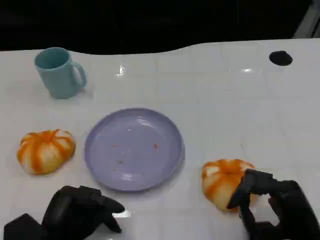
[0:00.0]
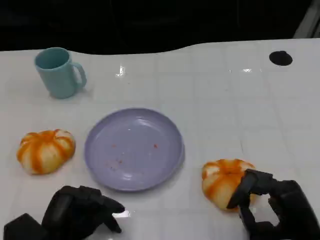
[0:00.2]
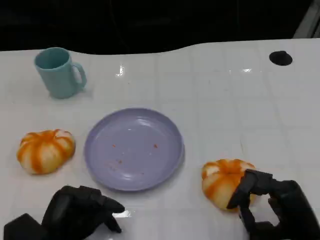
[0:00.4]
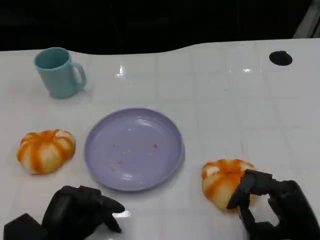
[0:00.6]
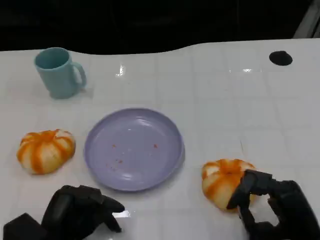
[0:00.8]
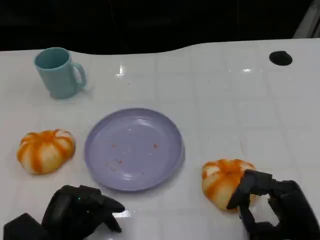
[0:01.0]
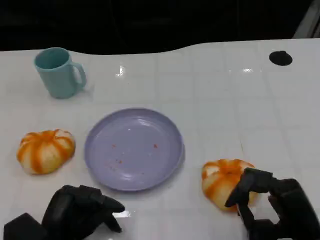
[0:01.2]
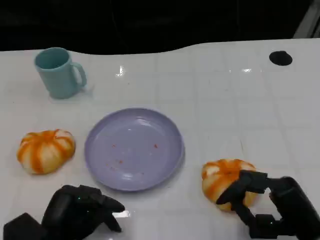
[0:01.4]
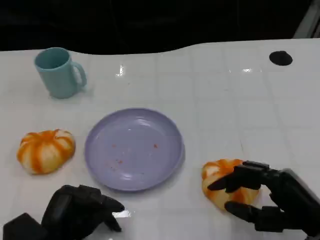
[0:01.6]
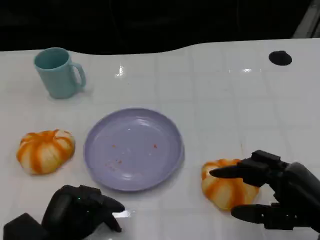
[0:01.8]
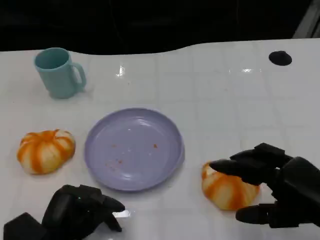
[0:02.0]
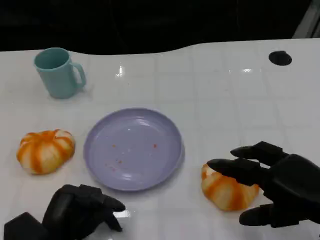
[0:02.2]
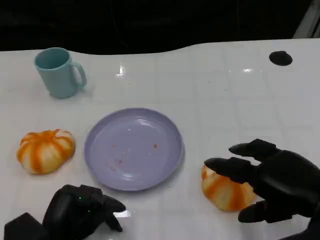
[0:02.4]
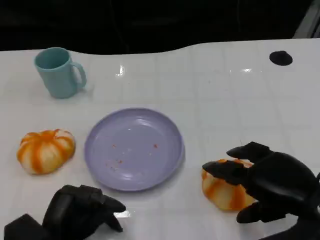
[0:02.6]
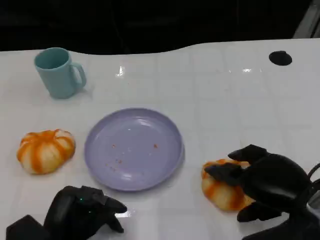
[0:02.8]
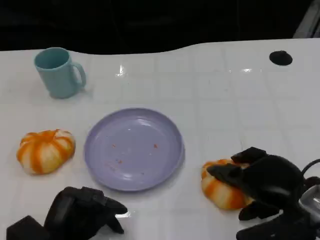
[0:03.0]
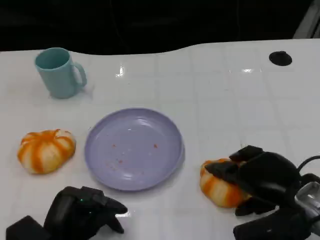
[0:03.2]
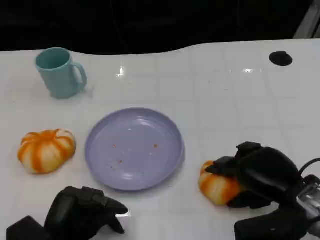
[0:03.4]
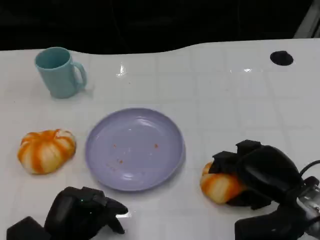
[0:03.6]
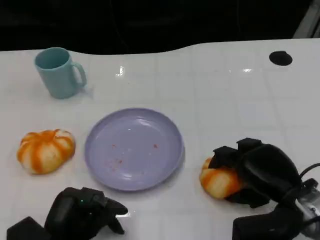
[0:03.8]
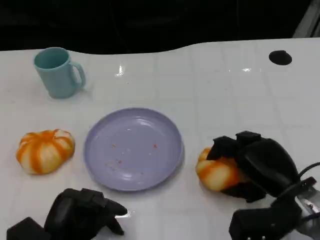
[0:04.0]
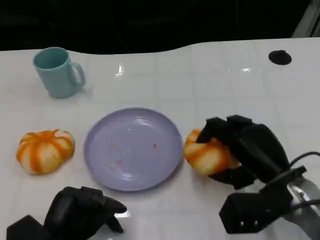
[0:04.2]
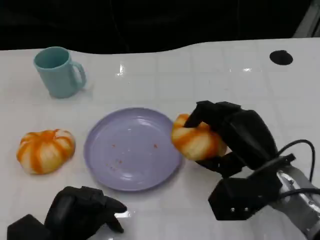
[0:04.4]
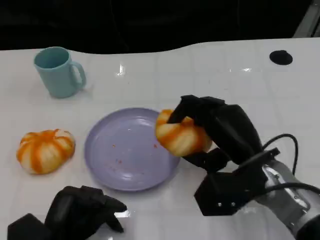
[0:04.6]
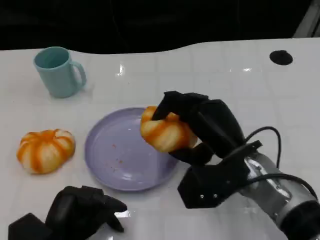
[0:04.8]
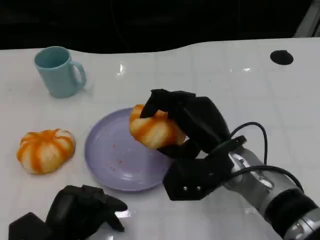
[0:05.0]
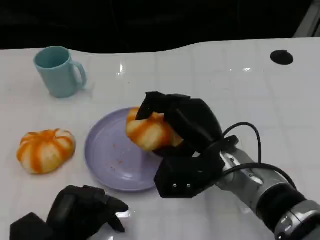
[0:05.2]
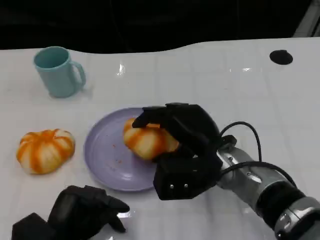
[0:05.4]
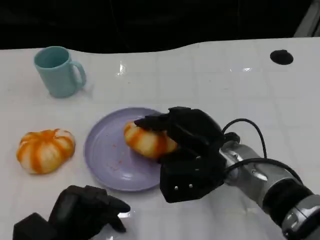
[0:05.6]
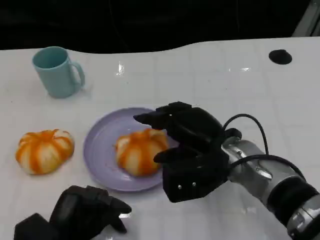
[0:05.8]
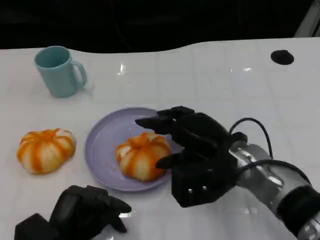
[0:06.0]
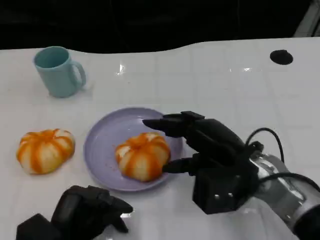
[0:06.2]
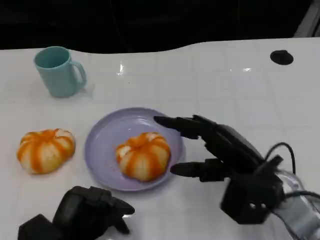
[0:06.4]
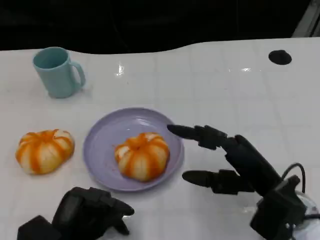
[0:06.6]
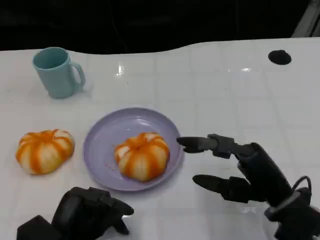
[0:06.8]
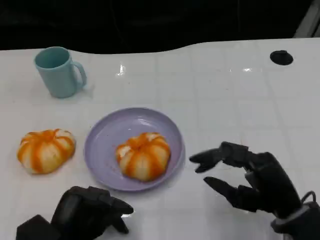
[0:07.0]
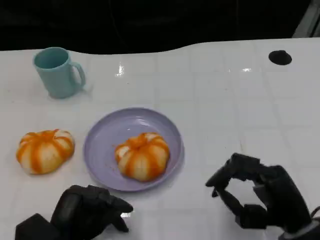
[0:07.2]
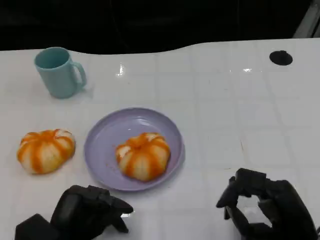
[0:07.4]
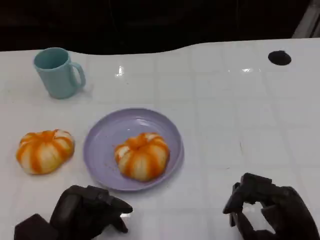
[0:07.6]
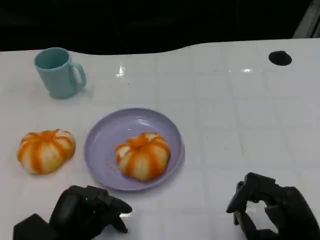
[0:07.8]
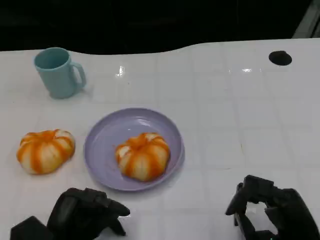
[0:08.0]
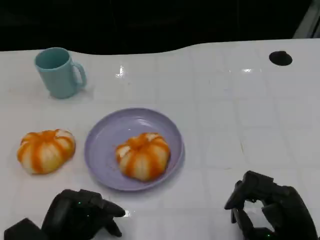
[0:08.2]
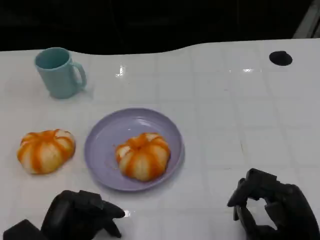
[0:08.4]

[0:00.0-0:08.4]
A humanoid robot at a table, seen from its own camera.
Task of the whole recording: Grasp the bread from the table and place it into the plate.
0:00.0 to 0:01.4: The hands move only a little.
0:01.4 to 0:02.8: The right hand moves roughly 5 cm.
0:02.8 to 0:04.2: The right hand shifts by approximately 5 cm.
0:04.2 to 0:05.6: The right hand shifts some 10 cm to the left.
0:05.6 to 0:07.0: The right hand travels to the right and backward by some 15 cm.
0:07.0 to 0:08.4: The hands move only a little.

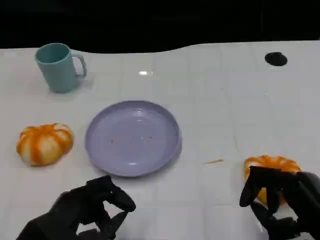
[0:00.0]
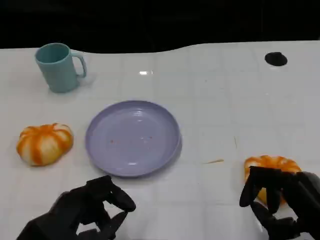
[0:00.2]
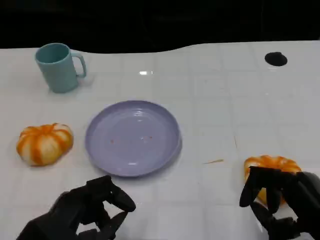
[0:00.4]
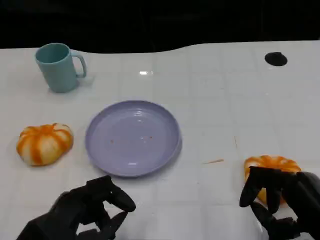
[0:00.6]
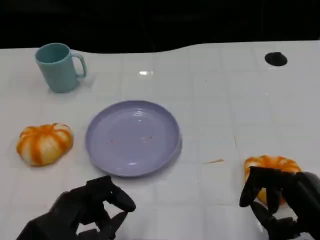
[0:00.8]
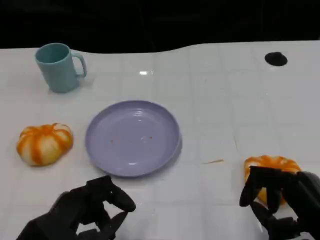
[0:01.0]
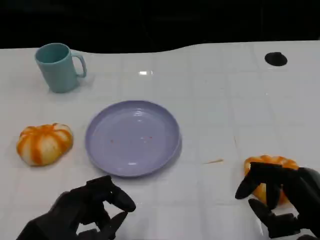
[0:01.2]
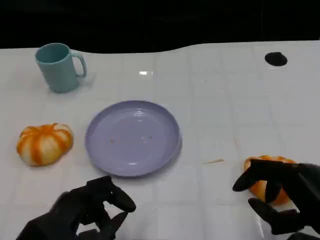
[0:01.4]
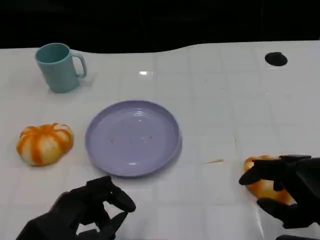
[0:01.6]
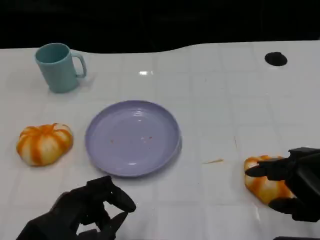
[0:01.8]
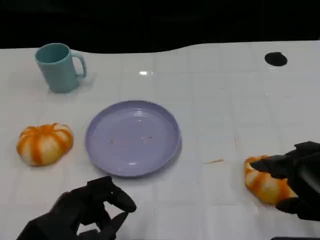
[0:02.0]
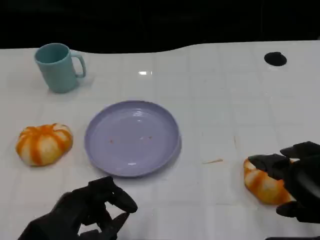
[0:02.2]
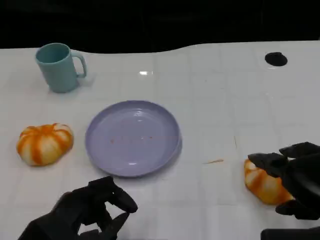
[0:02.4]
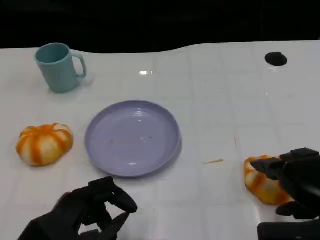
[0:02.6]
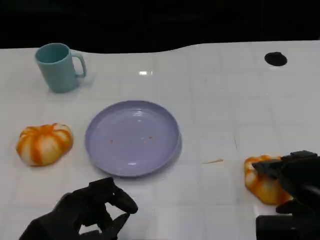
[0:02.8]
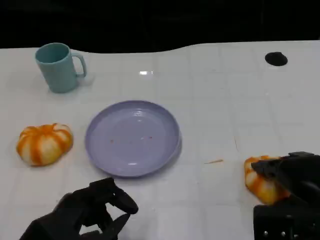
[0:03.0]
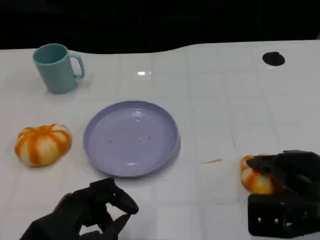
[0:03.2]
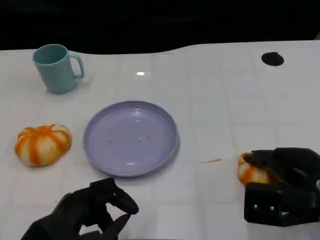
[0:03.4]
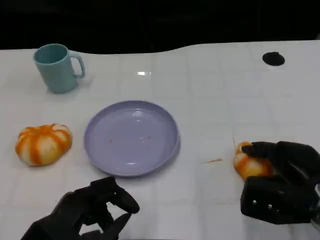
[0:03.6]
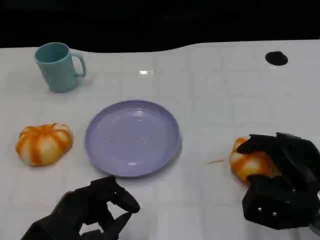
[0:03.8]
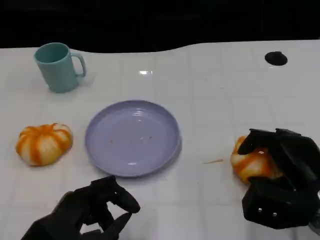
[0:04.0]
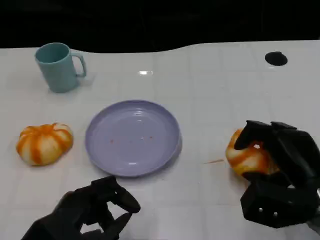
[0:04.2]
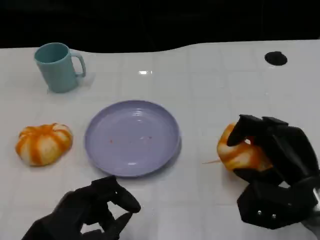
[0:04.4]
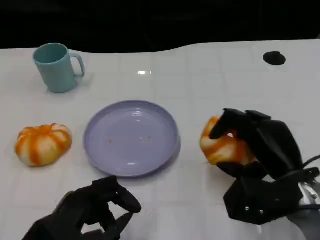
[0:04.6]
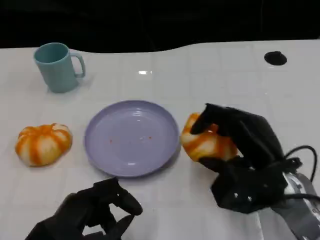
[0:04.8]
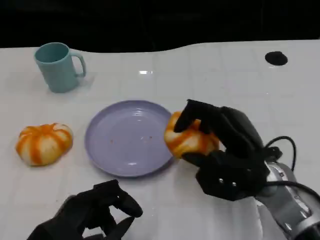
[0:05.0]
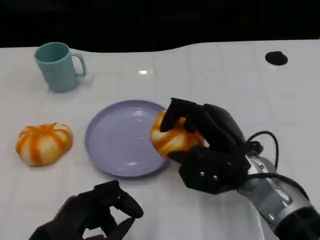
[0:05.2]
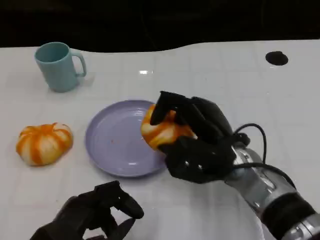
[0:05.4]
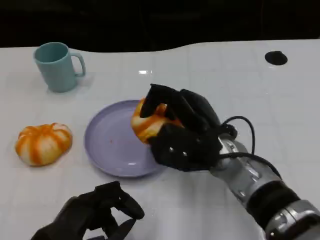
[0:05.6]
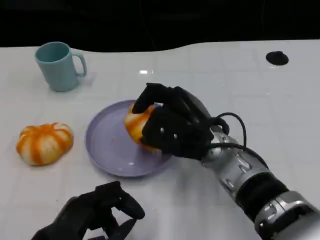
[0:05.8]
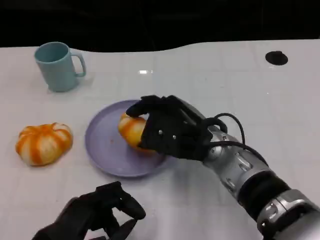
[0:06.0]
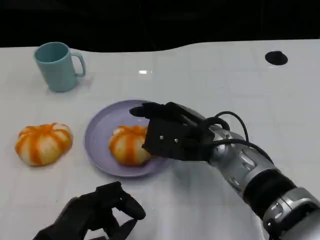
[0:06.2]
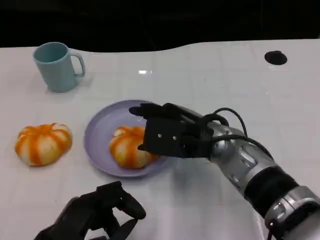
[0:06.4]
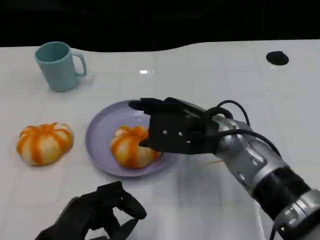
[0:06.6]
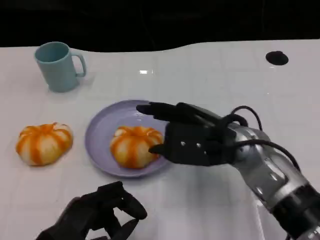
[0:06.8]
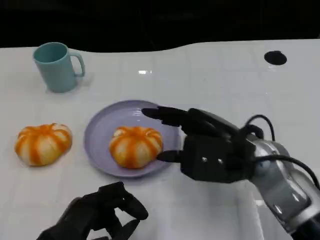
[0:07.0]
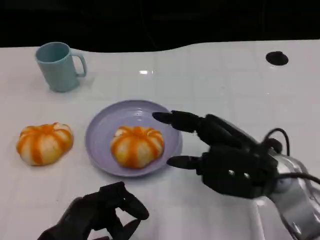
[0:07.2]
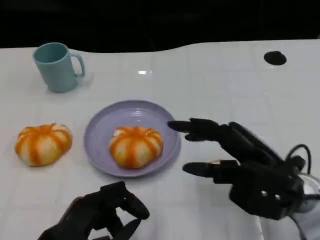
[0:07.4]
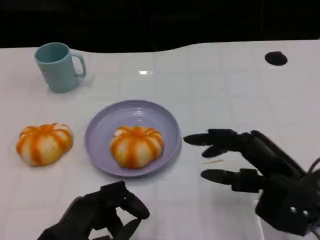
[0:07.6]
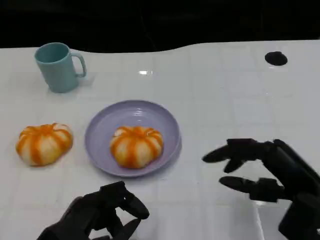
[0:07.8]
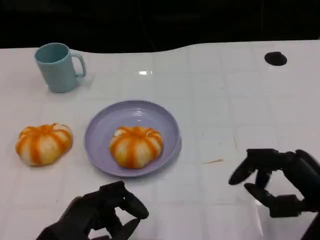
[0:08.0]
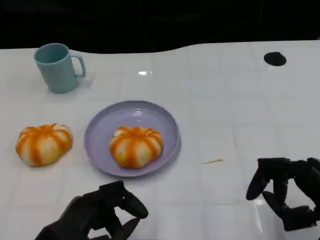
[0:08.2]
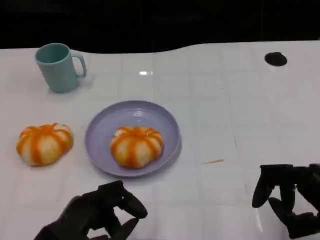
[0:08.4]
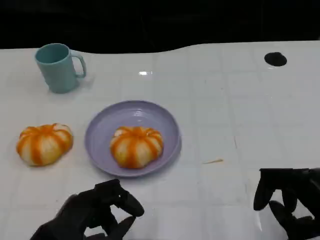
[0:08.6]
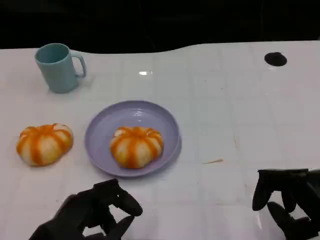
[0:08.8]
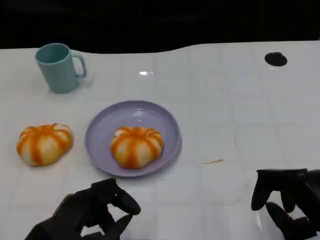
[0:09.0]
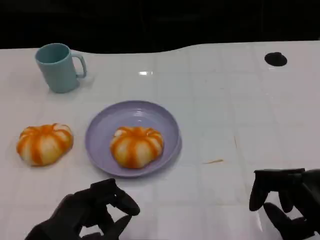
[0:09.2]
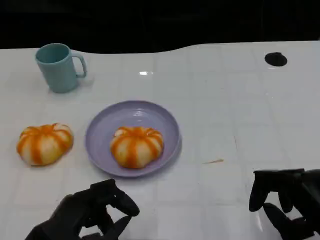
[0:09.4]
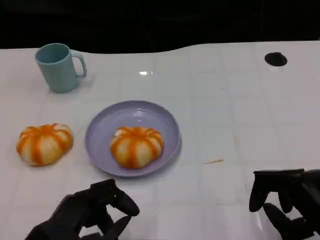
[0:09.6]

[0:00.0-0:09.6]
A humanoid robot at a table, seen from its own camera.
Task of the whole recording: Grasp the bread from the table and place it into the plate.
0:01.6 to 0:03.2: The right hand moves forward, approximately 5 cm.
0:03.2 to 0:04.8: The right hand is displaced to the left by about 5 cm.
0:04.8 to 0:06.4: The right hand goes approximately 10 cm to the left.
0:06.4 to 0:08.0: The right hand heads to the right and backward, covering some 20 cm.
0:08.0 to 0:09.6: The hands make only small movements.

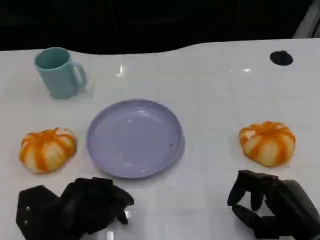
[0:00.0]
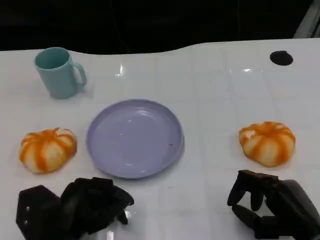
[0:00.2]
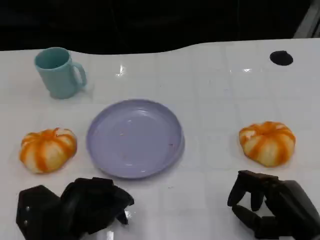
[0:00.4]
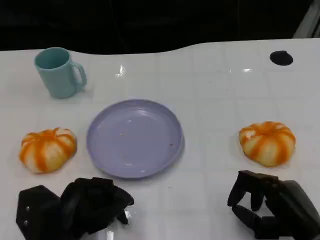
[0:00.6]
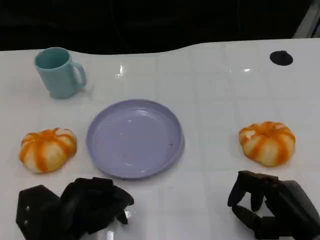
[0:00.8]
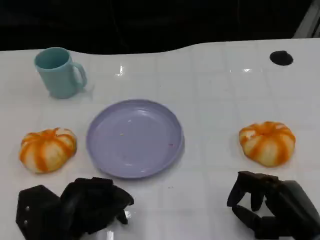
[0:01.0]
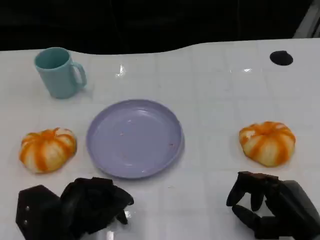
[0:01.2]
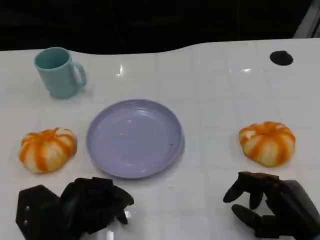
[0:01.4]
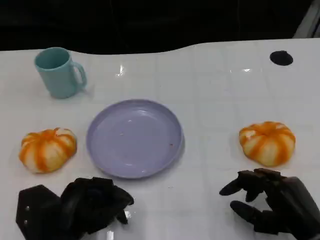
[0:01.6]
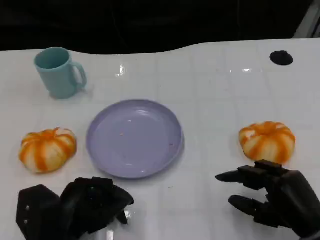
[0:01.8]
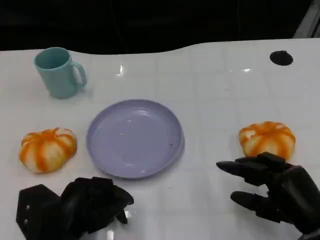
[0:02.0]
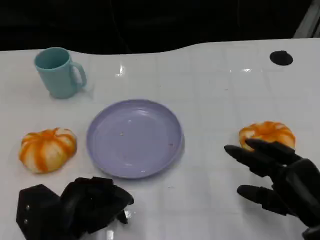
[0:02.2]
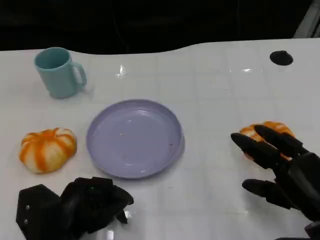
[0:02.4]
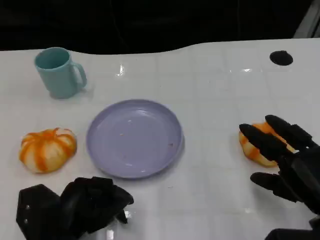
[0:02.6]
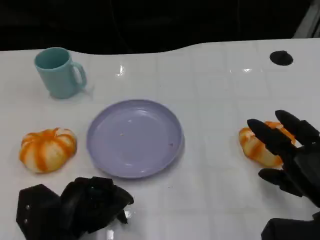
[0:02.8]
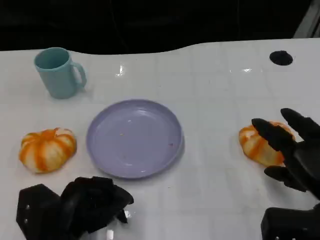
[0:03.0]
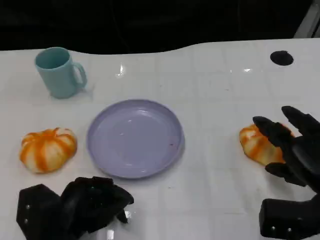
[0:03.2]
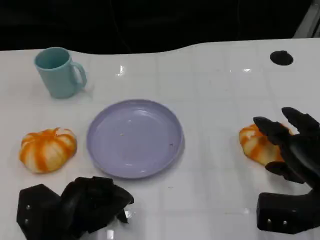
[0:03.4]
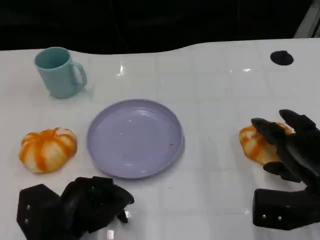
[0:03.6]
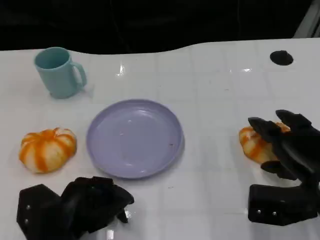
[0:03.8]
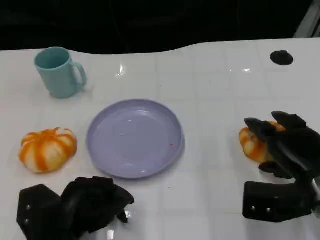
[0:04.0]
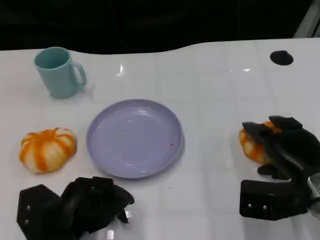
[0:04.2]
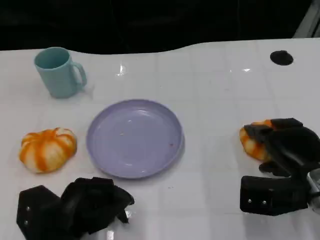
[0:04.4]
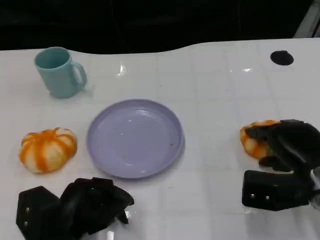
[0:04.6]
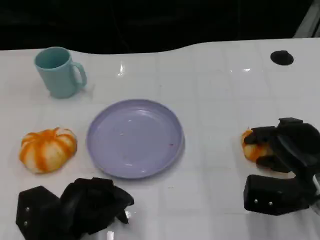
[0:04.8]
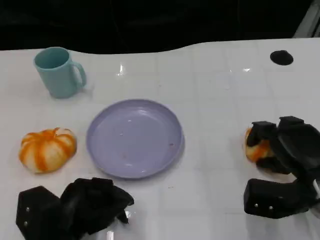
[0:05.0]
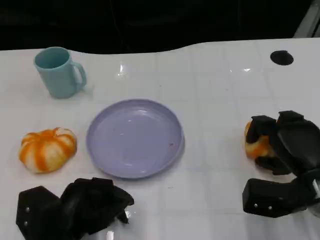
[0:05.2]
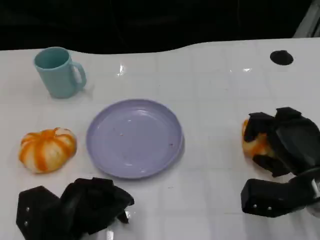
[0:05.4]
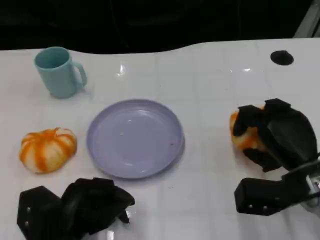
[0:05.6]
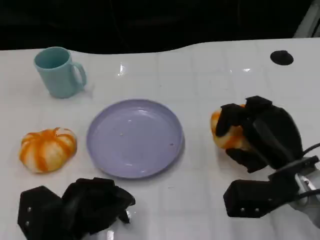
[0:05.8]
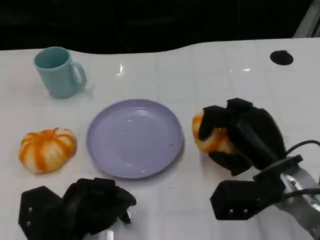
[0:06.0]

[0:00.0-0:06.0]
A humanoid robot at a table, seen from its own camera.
Task of the whole recording: Grasp the bread from the table and place it into the plate.
0:00.0 to 0:01.6: Both hands stay about where they are.
0:01.6 to 0:03.0: The right hand moves roughly 5 cm.
0:03.0 to 0:04.4: The right hand moves approximately 5 cm.
0:04.4 to 0:06.0: The right hand is displaced to the left by about 5 cm.
